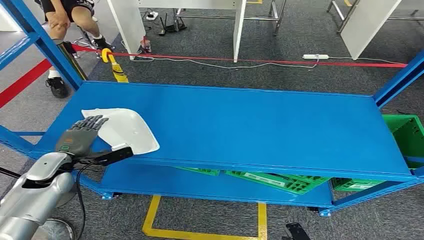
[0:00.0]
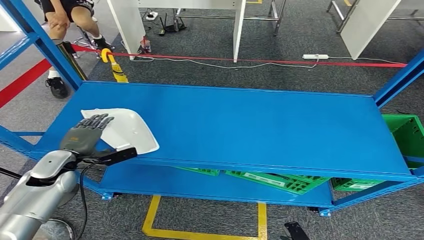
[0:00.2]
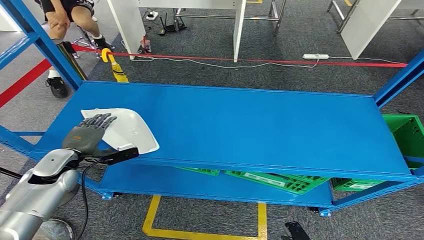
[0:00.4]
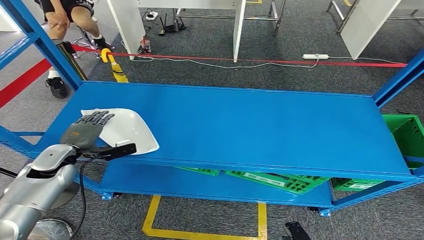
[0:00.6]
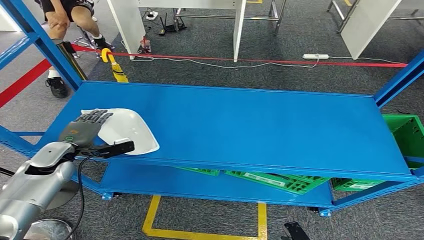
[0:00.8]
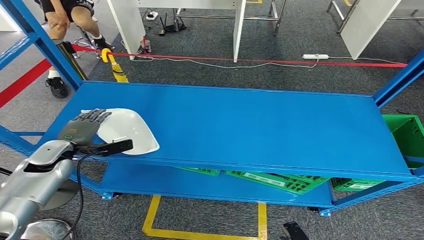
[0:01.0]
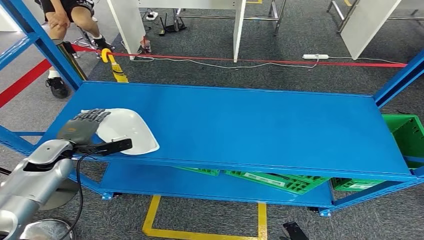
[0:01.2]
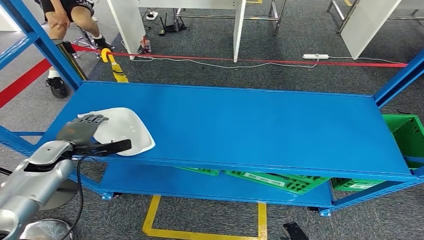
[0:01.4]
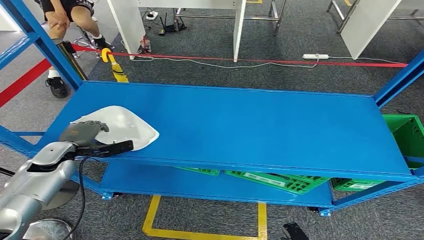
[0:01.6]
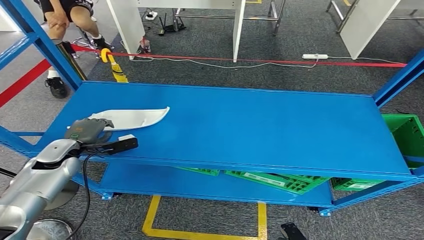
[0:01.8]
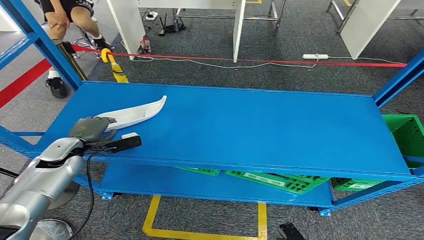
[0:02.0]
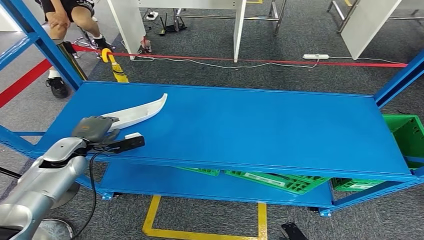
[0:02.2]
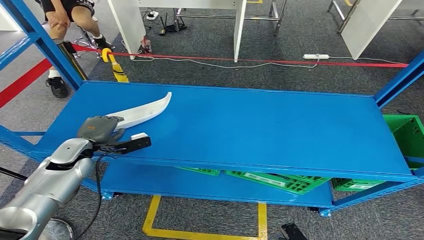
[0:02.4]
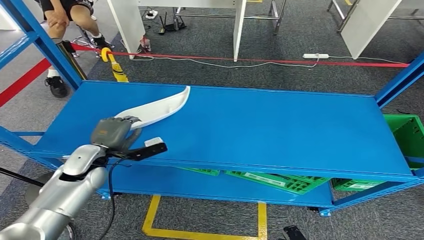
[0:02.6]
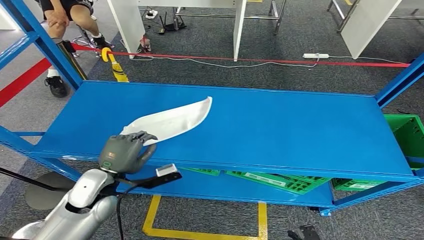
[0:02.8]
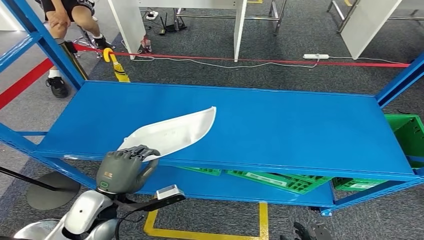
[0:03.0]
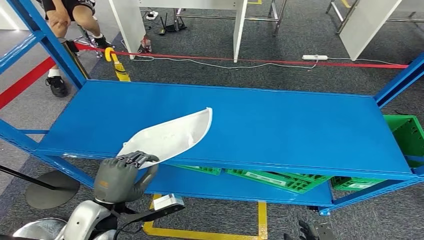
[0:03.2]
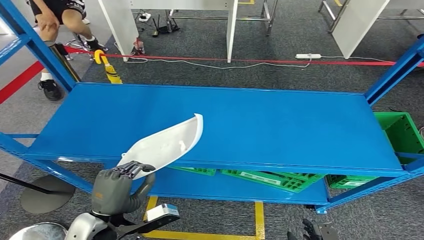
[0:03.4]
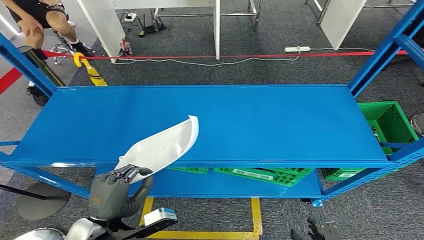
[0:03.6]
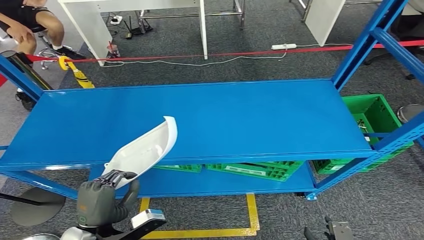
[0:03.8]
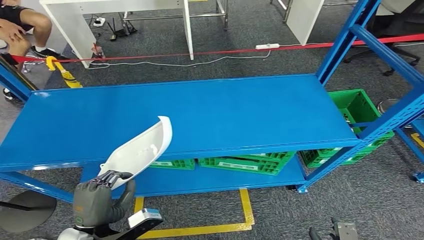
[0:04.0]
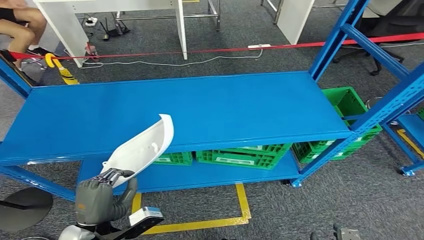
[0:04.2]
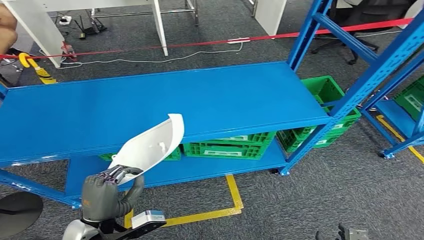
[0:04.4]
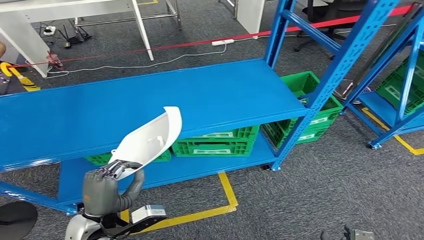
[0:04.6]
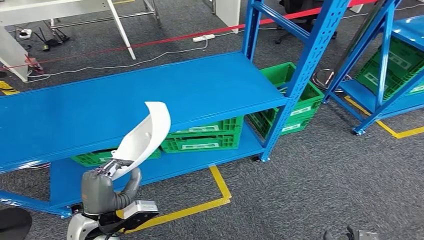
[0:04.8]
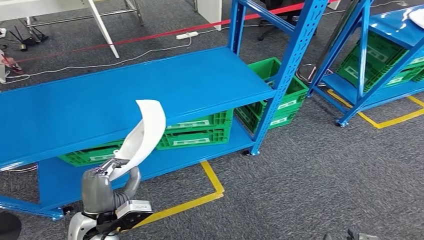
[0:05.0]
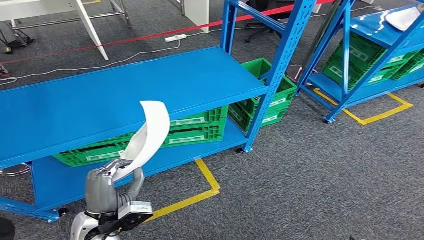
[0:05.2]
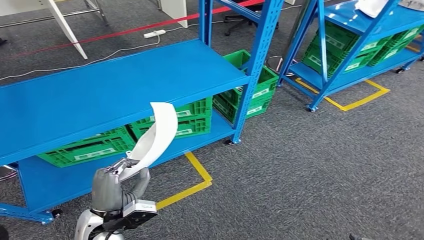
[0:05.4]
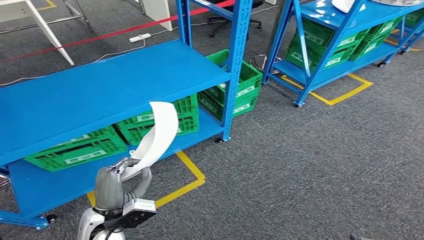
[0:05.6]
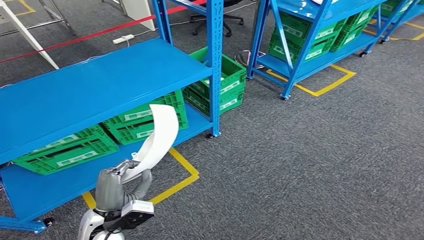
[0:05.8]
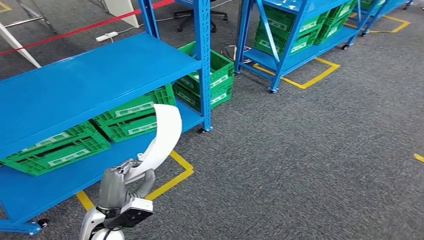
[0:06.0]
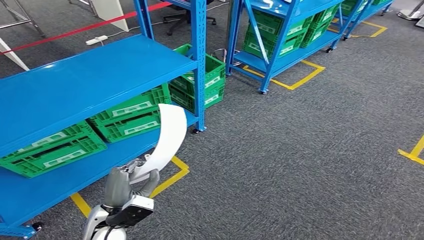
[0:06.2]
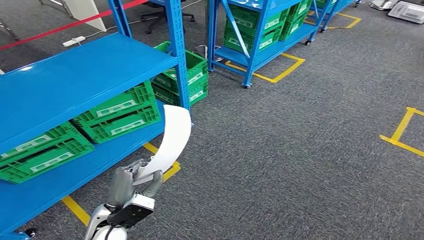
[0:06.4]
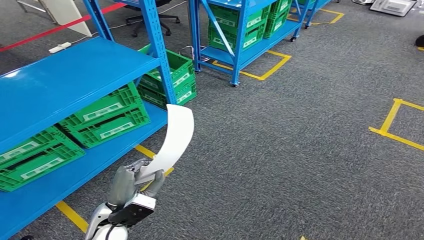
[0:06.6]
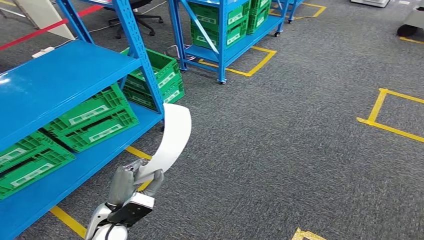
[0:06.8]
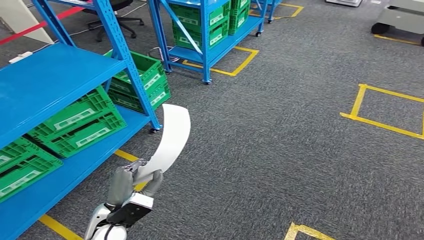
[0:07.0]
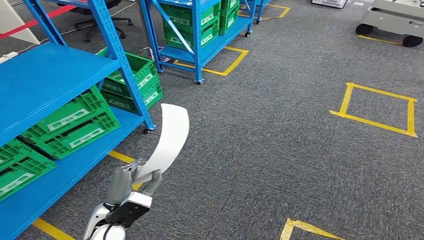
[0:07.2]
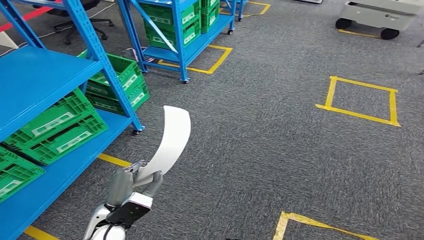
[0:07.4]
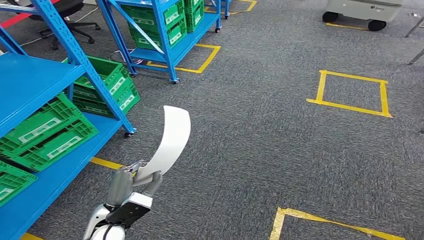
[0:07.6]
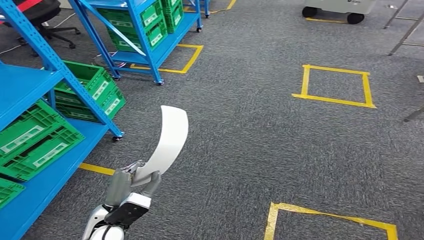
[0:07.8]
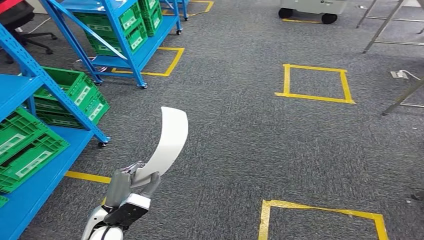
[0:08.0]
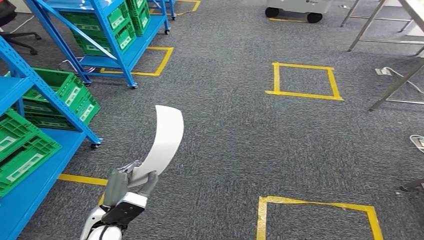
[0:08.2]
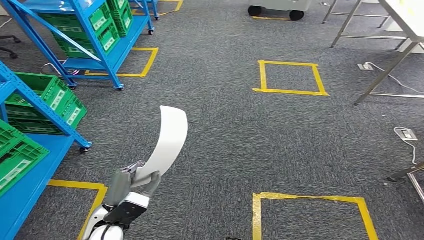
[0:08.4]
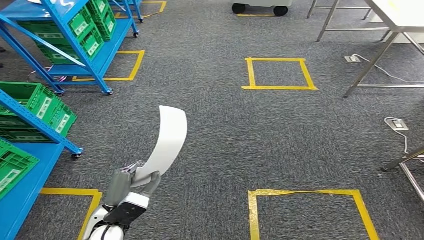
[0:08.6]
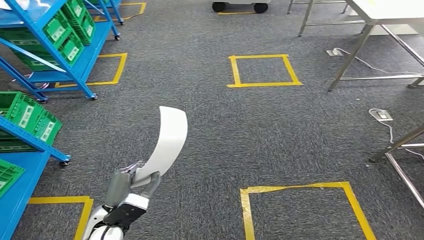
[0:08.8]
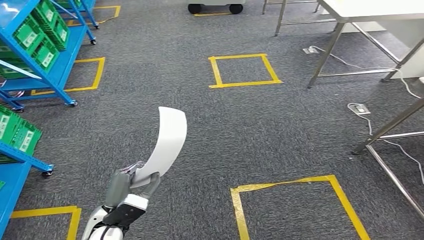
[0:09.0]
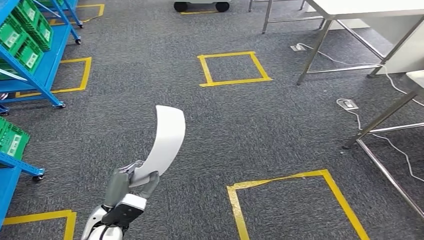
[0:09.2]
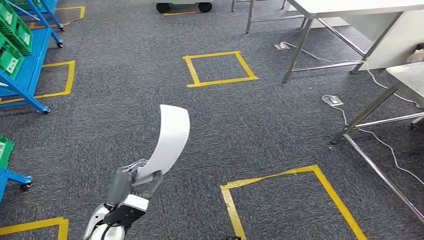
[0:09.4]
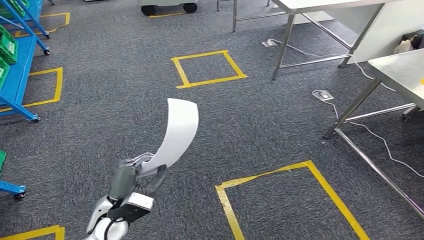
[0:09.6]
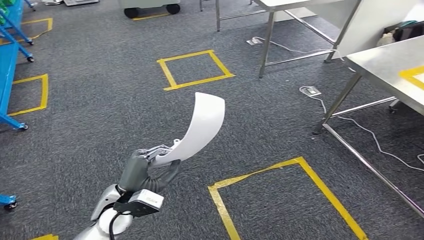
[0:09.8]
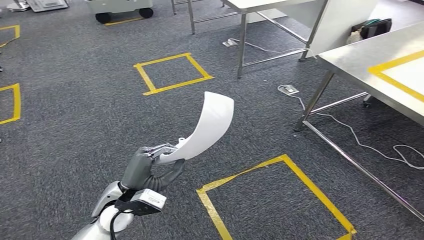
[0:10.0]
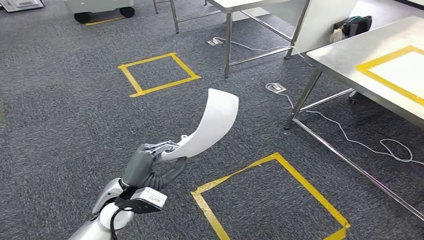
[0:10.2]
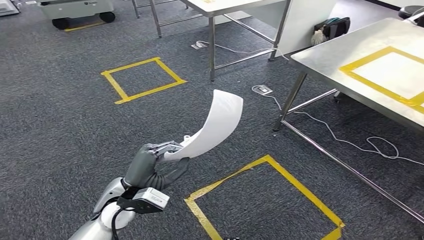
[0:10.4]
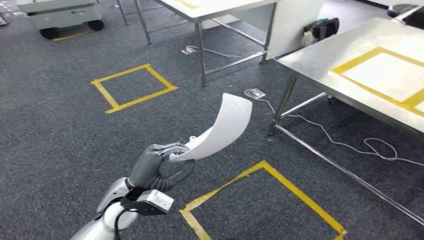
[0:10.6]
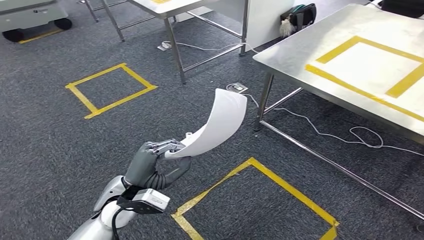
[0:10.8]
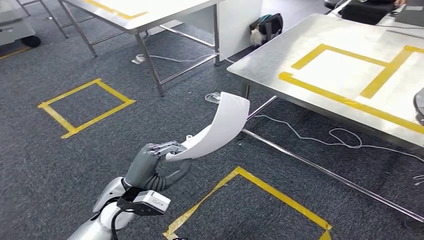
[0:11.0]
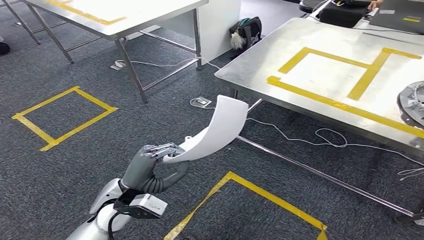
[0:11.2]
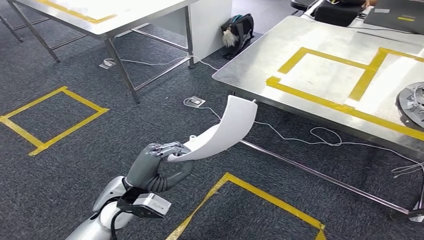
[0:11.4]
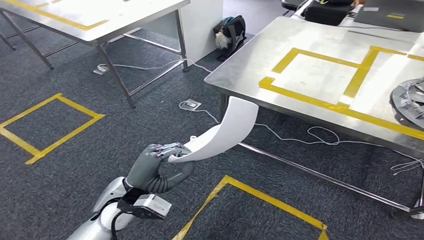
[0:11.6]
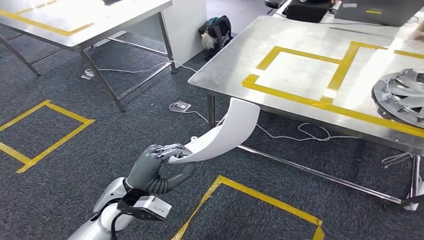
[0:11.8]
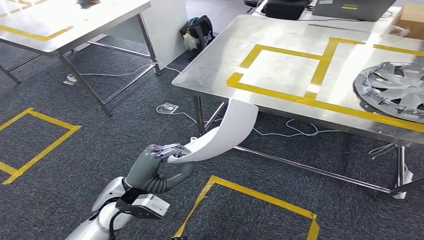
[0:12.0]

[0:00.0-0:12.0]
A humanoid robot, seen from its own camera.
Step, 0.0 to 4.4 s: Pick up the small component from the shelf.
1.6 to 3.0 s: The left hand heads backward and to the right, covering about 20 cm.

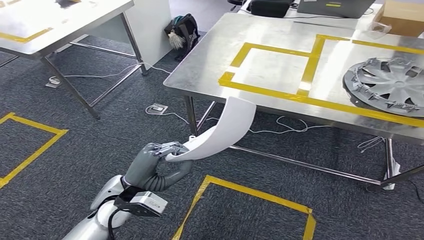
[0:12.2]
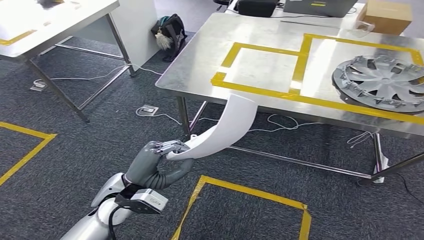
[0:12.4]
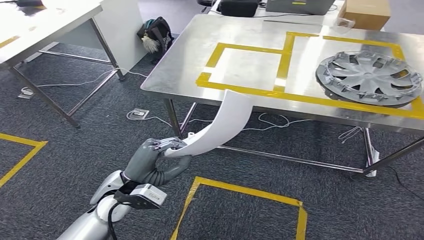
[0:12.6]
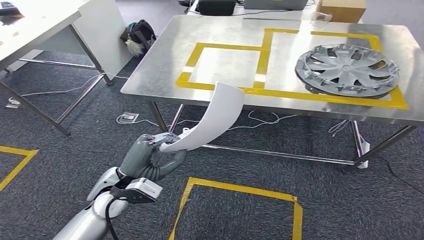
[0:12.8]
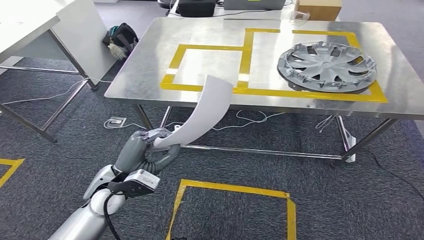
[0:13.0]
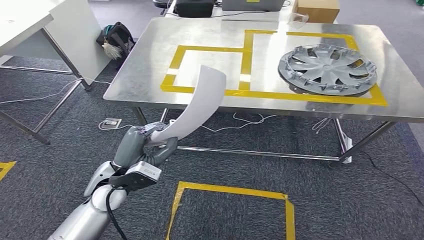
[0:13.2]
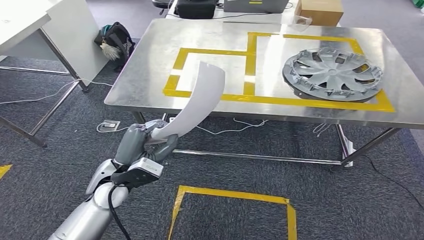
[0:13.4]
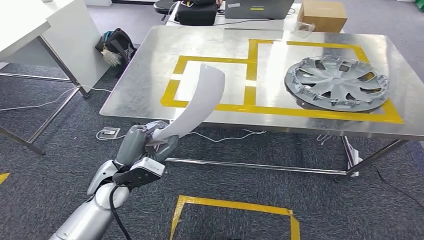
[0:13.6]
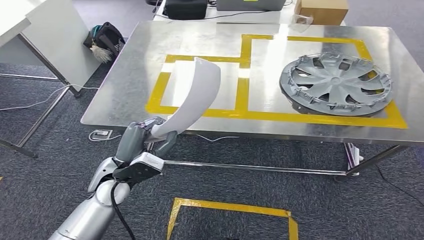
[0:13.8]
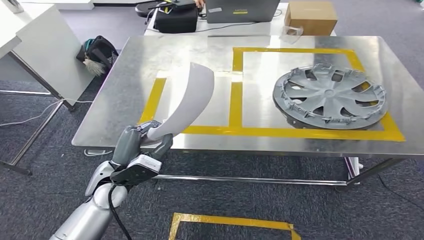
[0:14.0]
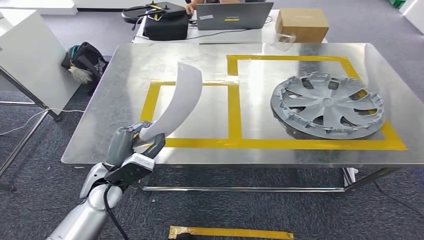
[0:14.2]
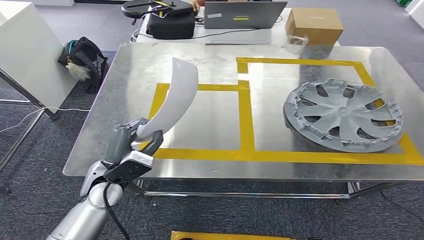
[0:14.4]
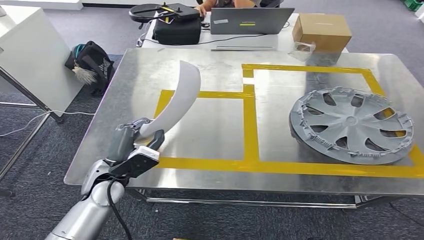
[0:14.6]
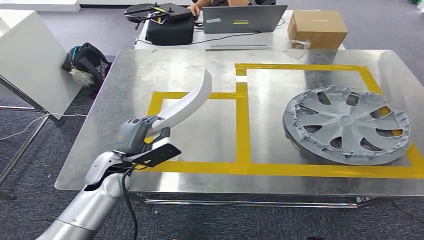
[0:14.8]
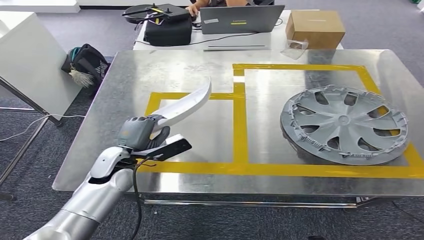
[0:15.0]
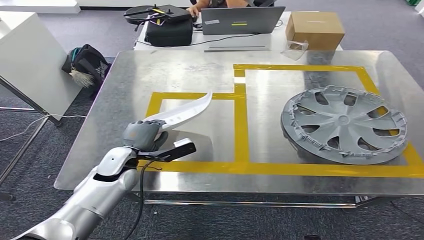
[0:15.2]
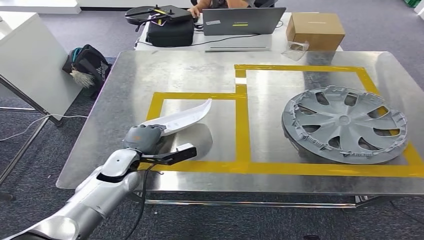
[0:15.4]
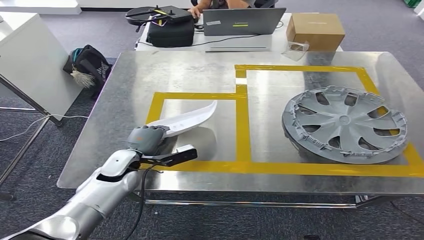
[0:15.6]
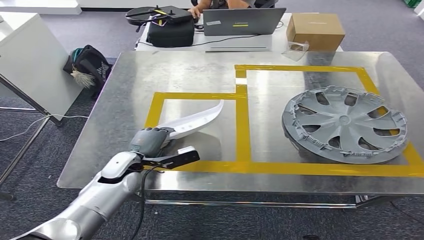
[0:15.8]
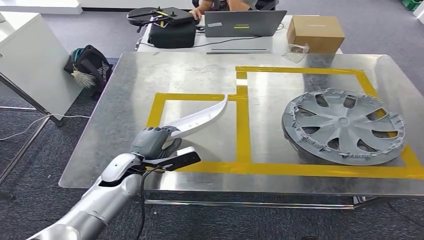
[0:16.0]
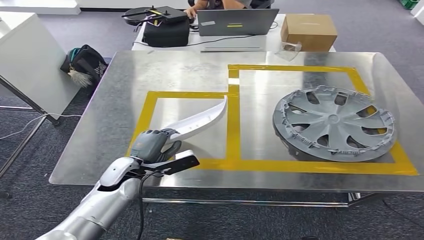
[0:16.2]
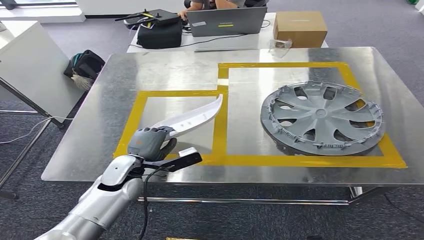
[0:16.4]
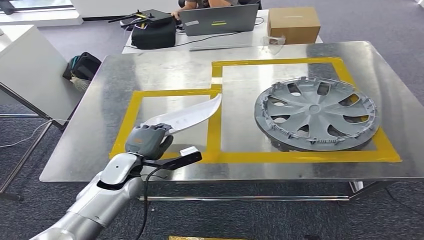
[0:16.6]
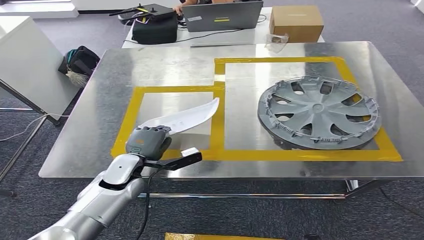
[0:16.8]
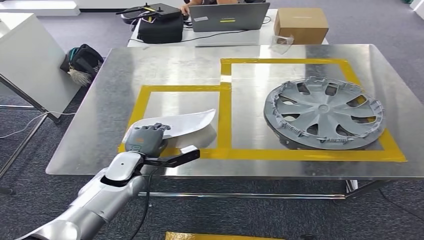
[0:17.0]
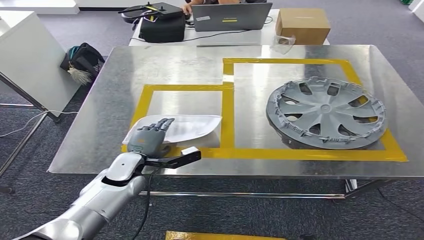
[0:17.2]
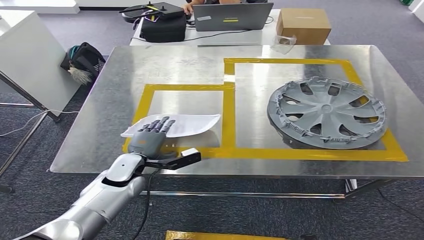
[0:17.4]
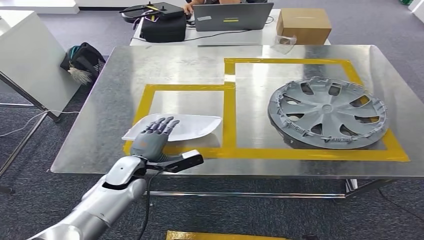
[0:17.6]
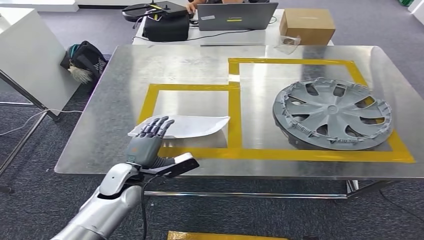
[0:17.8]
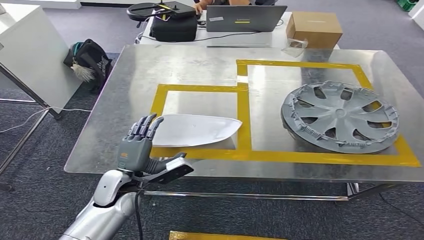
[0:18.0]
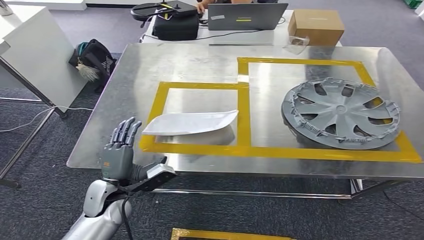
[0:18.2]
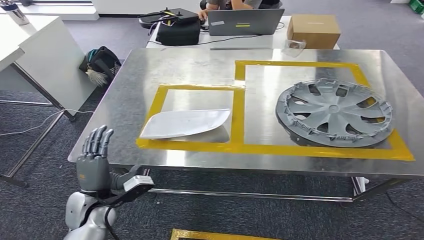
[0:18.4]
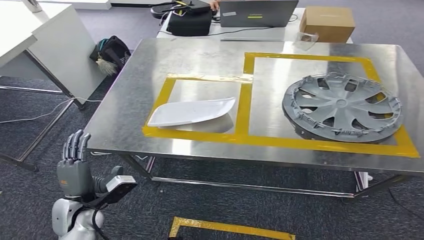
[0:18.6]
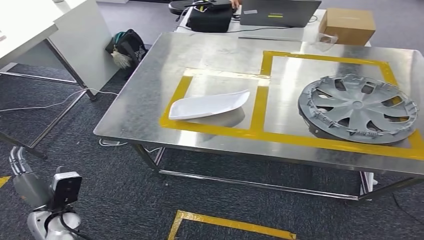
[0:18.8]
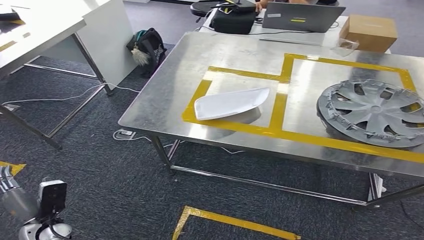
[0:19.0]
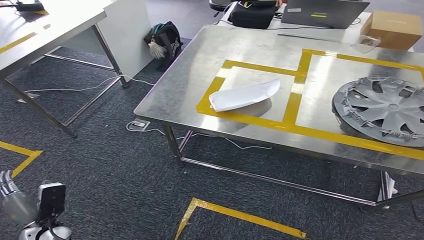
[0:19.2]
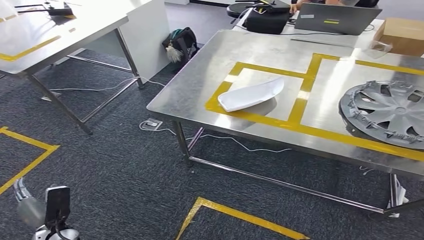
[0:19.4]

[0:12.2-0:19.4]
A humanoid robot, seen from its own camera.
Step, 14.4 to 18.2 s: Insert the small component into the corresponding slot on the workbench.
